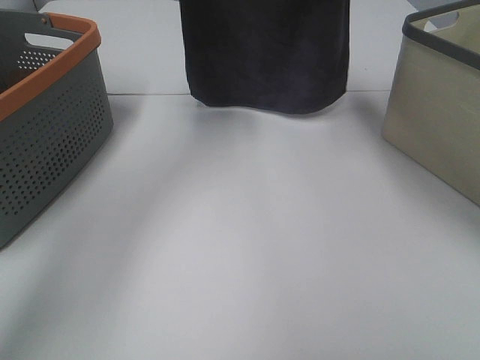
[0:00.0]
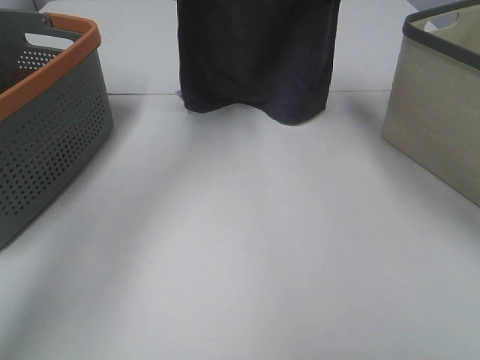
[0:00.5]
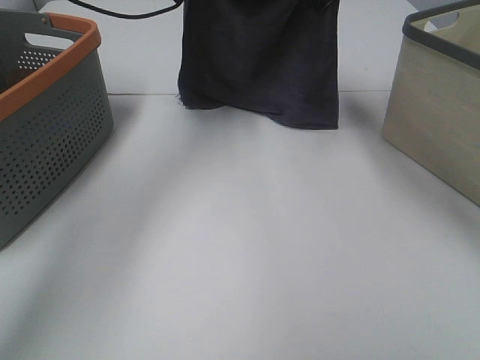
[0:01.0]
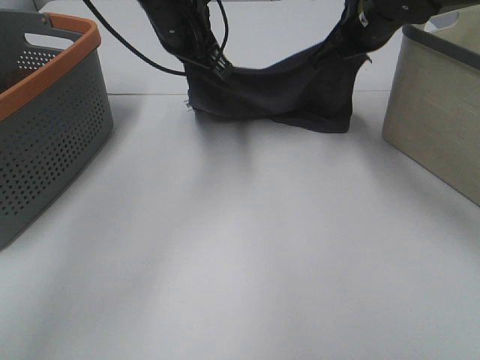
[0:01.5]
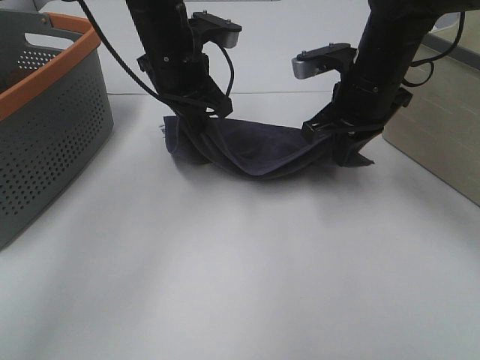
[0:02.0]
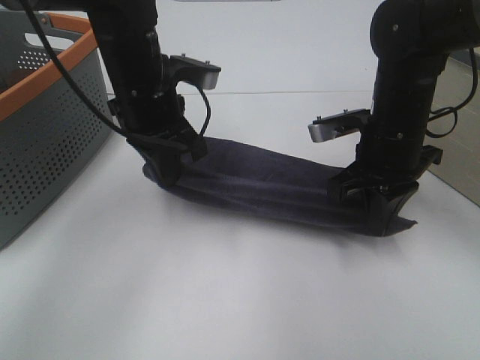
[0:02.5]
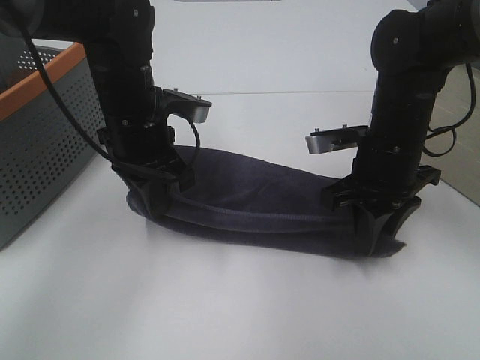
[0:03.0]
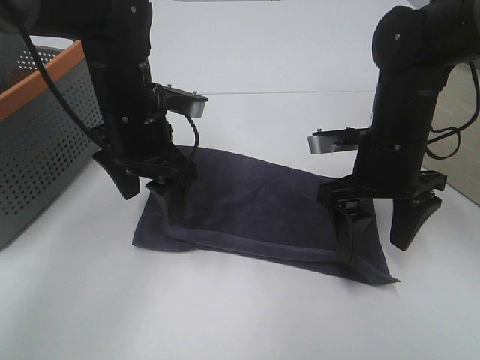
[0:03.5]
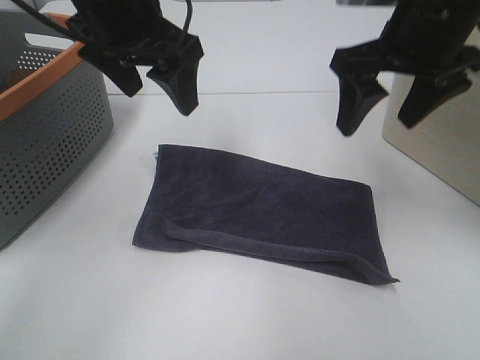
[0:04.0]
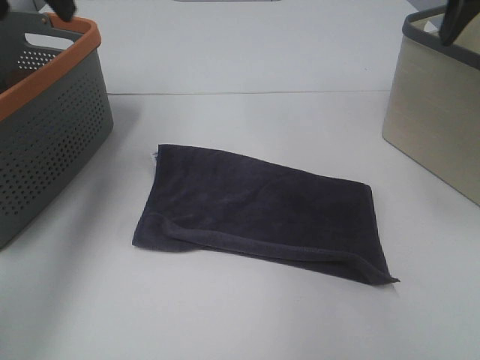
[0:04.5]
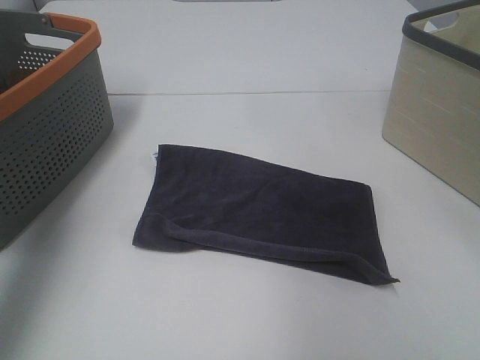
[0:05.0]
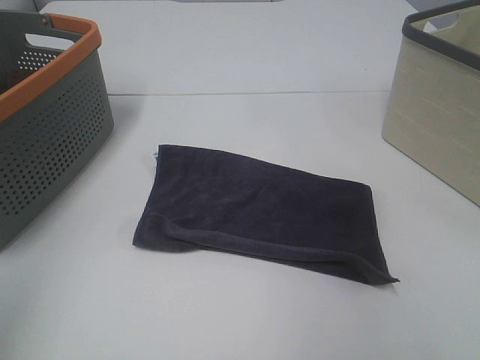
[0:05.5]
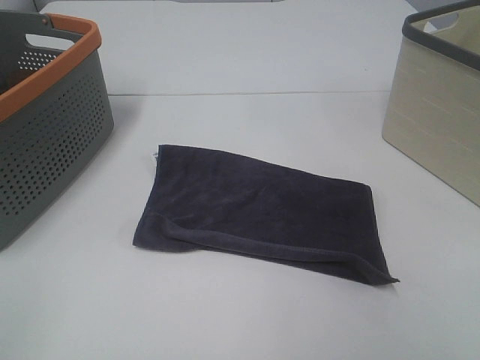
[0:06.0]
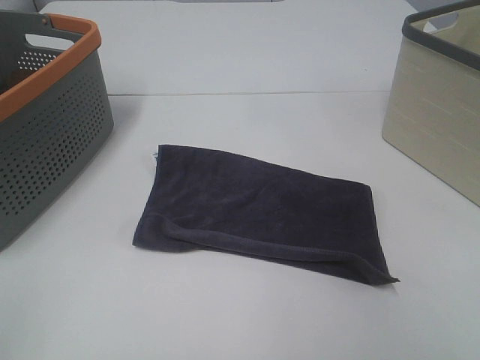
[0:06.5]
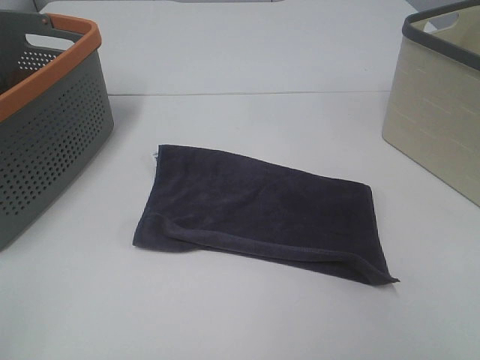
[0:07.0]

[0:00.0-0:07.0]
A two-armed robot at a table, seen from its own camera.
Task of the whole recording: Remove the towel and place it.
0:00.0 to 0:02.0: The grippers both shift downward and backward by roughly 15 cm.
0:02.0 to 0:03.5: Both grippers travel together backward, some 5 cm. The right gripper opens, while the left gripper opens its fingers.
0:03.5 to 0:05.0: The left gripper moves upward, to the left and backward, approximately 35 cm, while the right gripper shifts about 25 cm upward, backward and to the right.
0:05.0 to 0:07.0: The left gripper shifts about 25 cm backward and downward.

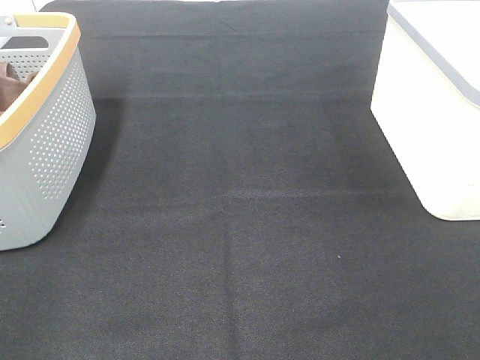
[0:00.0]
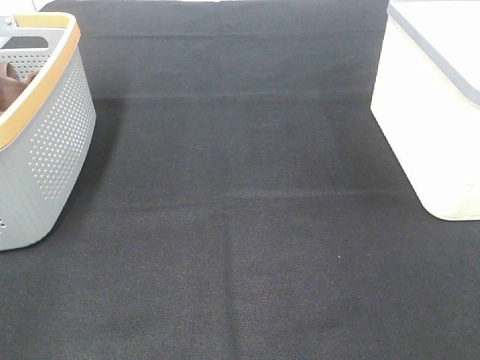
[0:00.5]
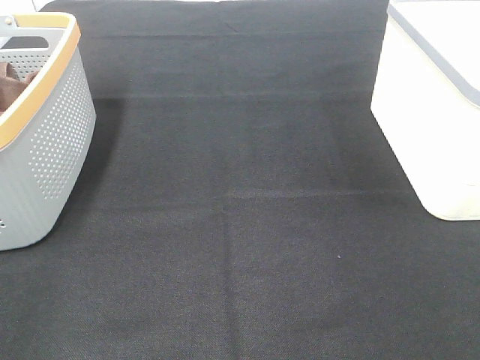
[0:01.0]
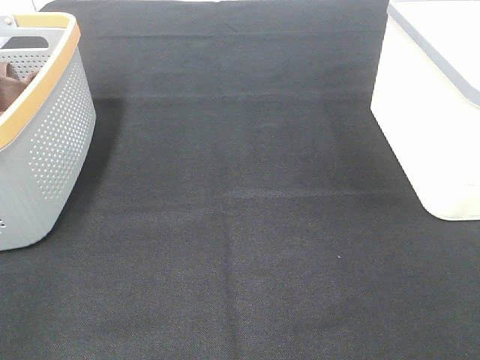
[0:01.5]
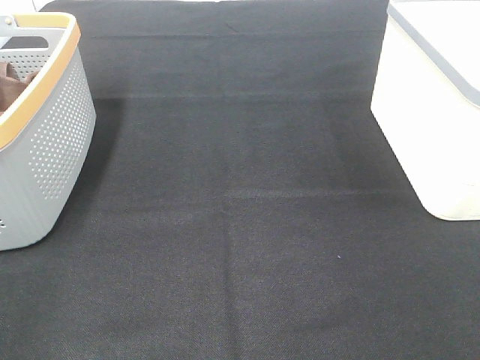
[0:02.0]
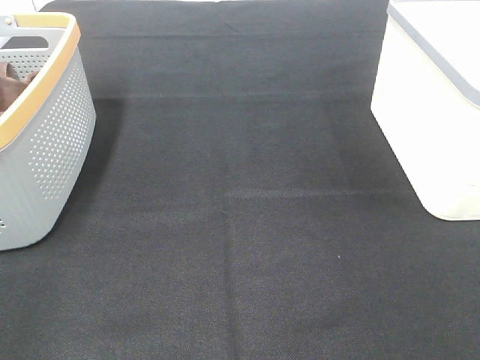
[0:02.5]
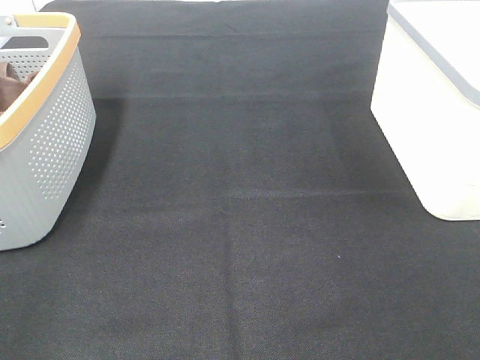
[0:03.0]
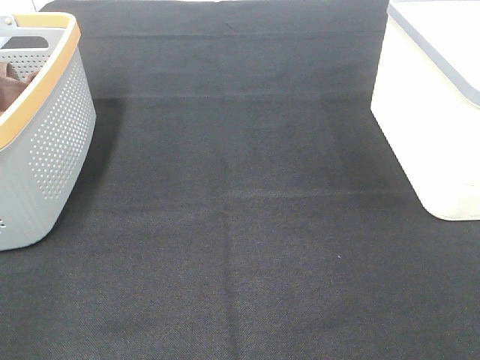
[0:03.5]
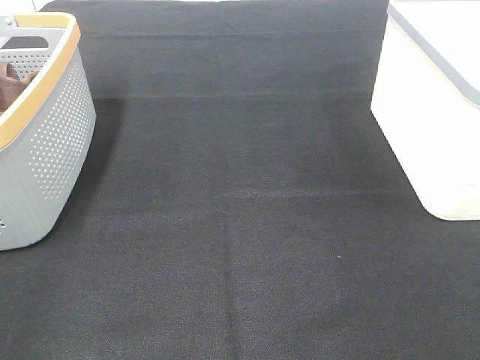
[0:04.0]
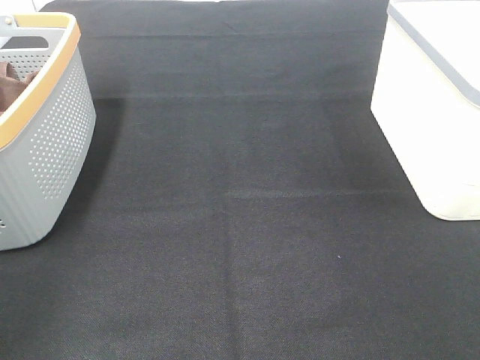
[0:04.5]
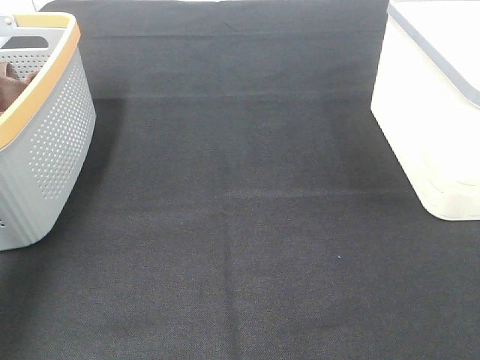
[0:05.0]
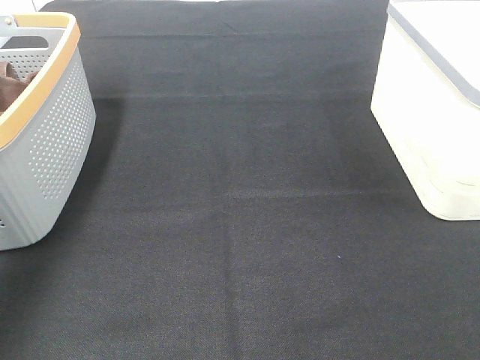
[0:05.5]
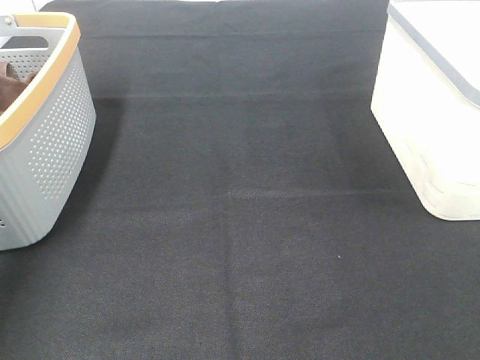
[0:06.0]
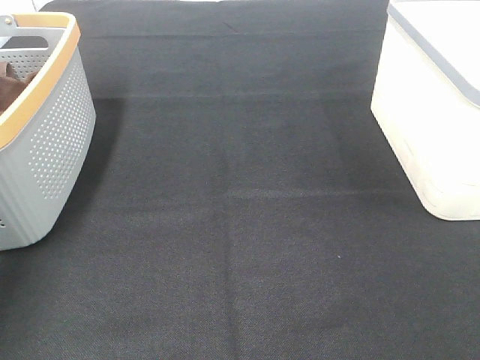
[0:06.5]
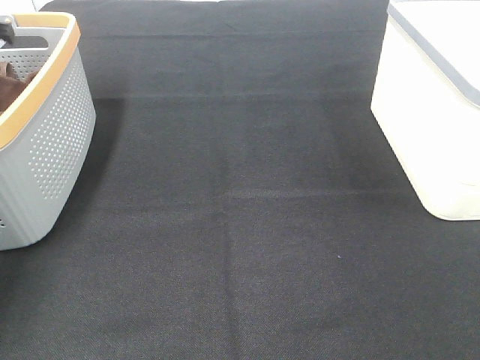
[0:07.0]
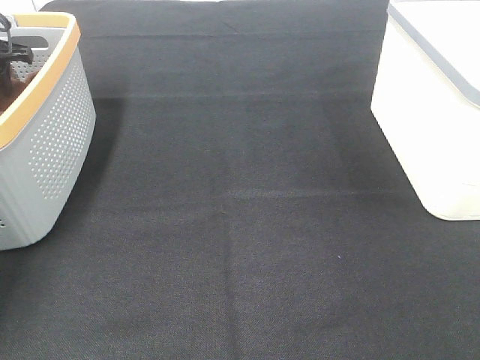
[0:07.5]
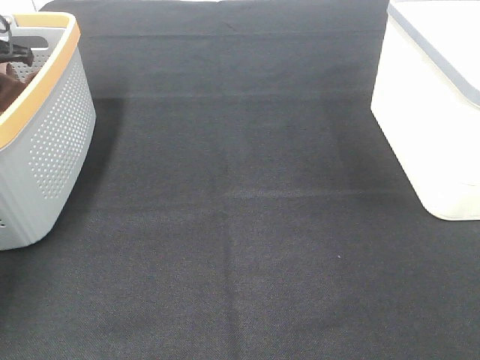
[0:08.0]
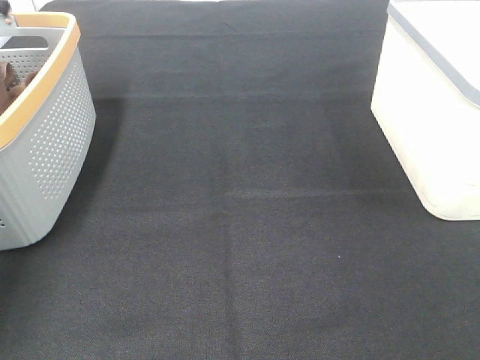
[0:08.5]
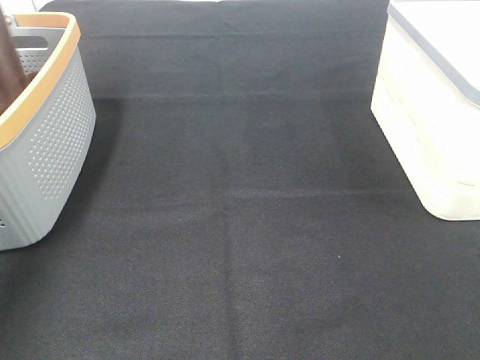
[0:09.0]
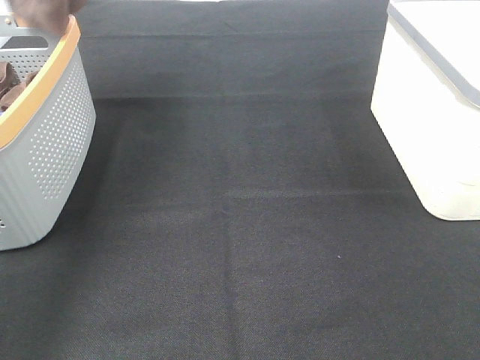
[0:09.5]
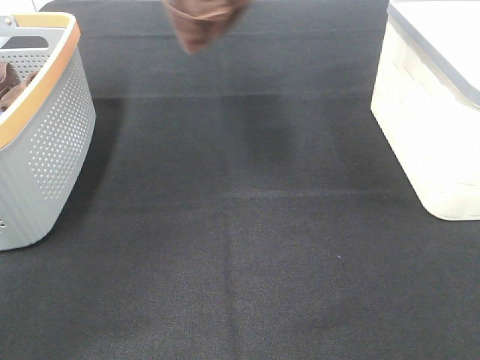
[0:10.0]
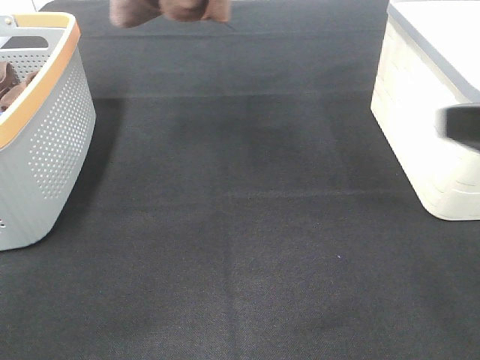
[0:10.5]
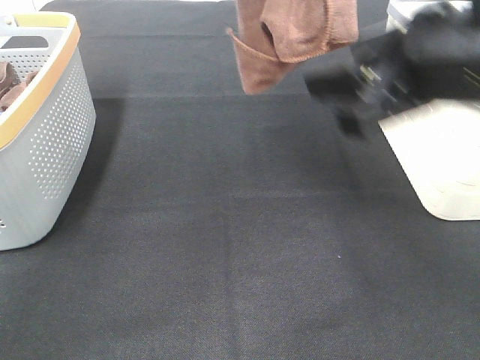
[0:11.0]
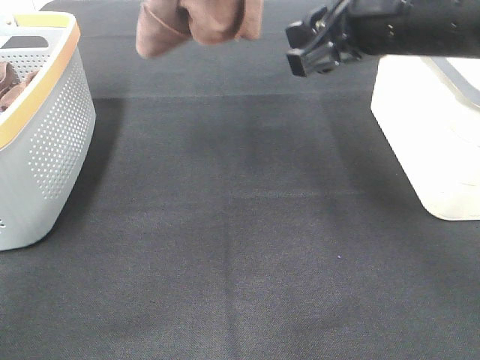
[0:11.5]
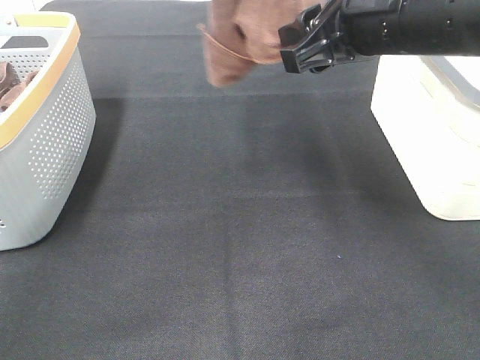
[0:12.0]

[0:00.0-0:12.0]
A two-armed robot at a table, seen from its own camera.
Task of the whole recording: Remove the towel and place it.
0:00.0 to 0:02.0: Both grippers stay about where they are.
0:04.0 to 0:06.0: The left gripper goes roughly 40 cm forward.
0:06.0 to 0:08.0: The left gripper is displaced downward and forward by some 15 cm, and closes up.
0:08.0 to 0:10.0: The left gripper moves upward and to the right, roughly 35 cm.
0:10.0 to 0:12.0: The left gripper shifts some 5 cm to the right, while the right gripper moves forward and to the left, roughly 30 cm.

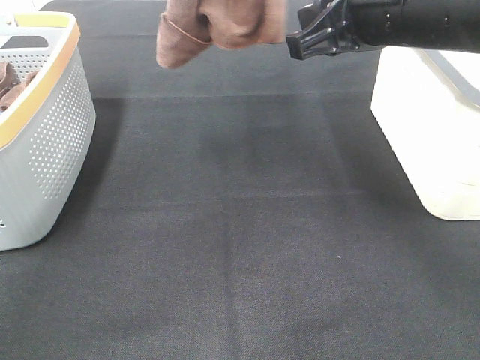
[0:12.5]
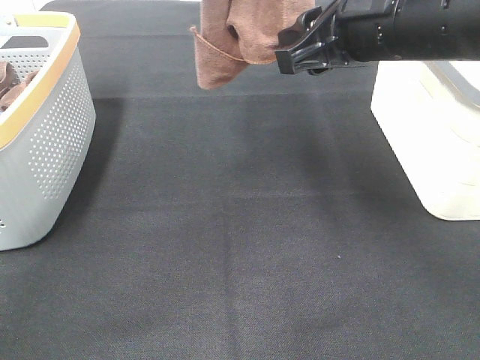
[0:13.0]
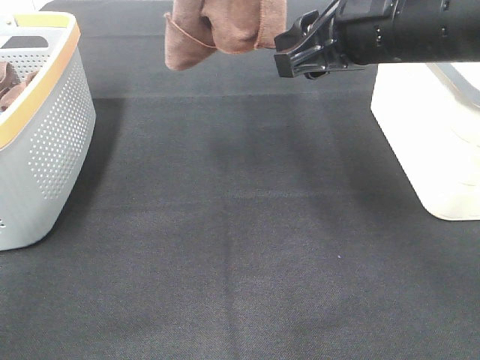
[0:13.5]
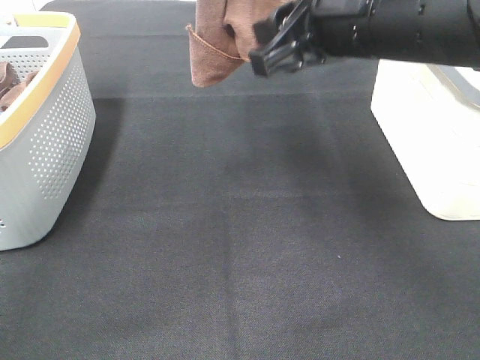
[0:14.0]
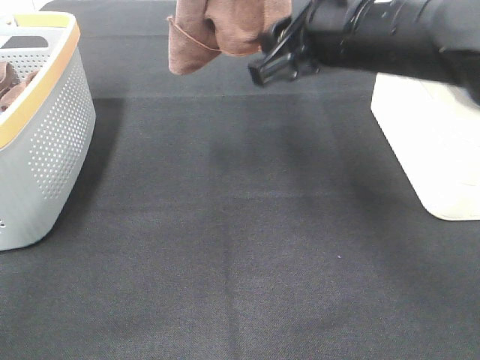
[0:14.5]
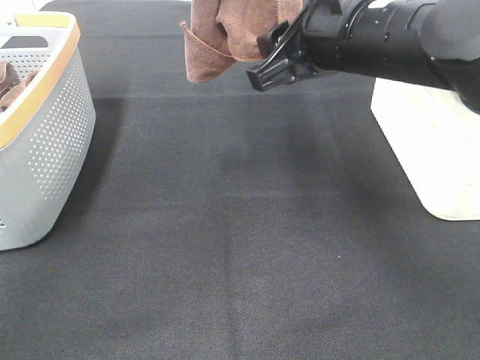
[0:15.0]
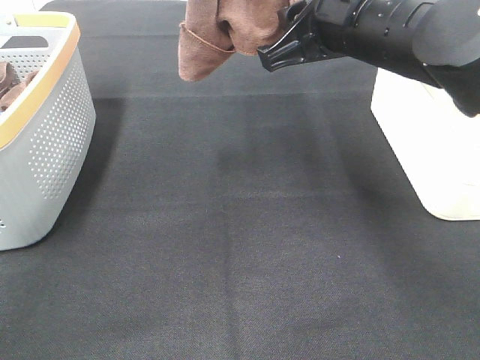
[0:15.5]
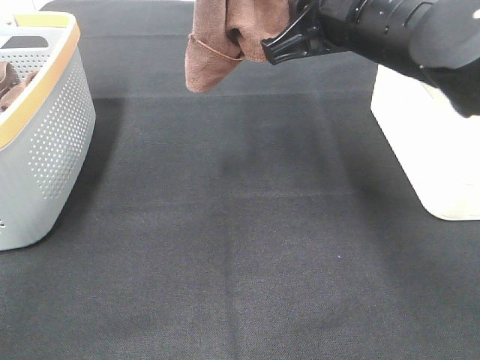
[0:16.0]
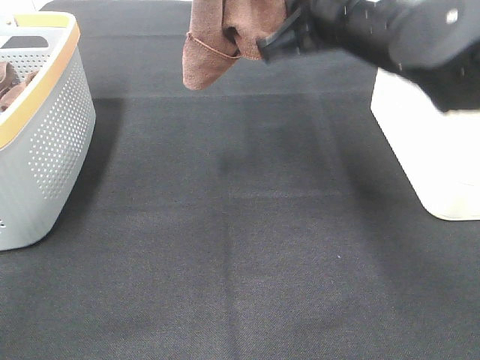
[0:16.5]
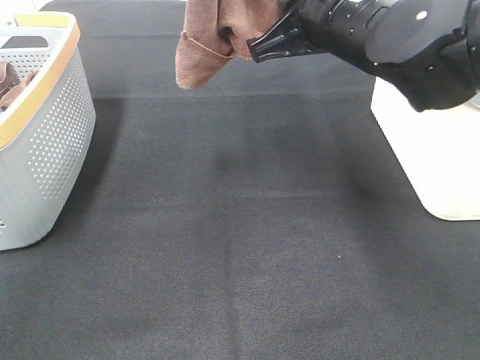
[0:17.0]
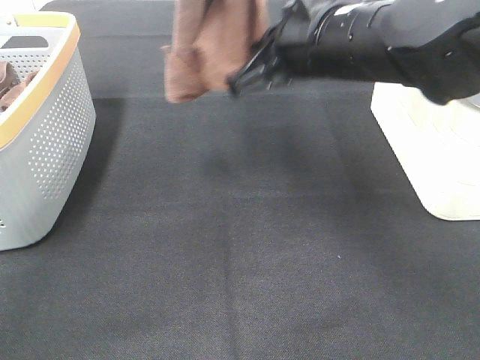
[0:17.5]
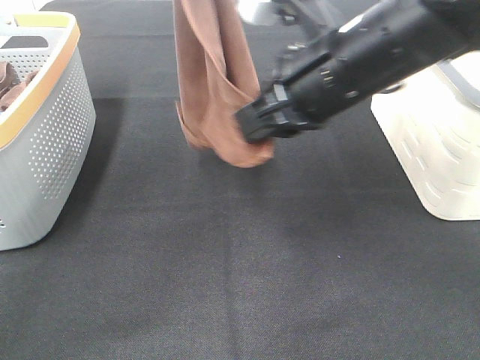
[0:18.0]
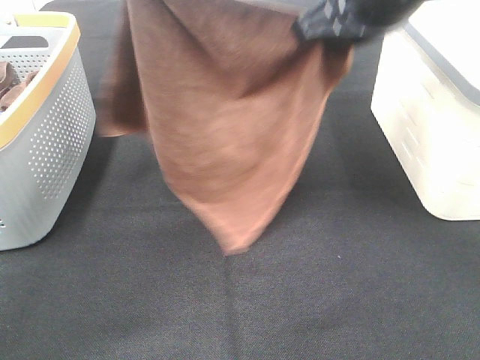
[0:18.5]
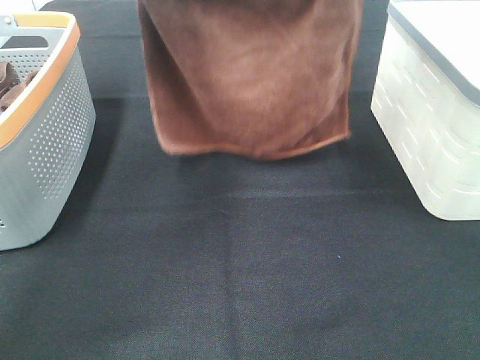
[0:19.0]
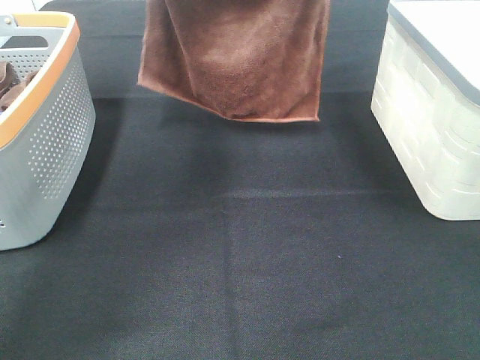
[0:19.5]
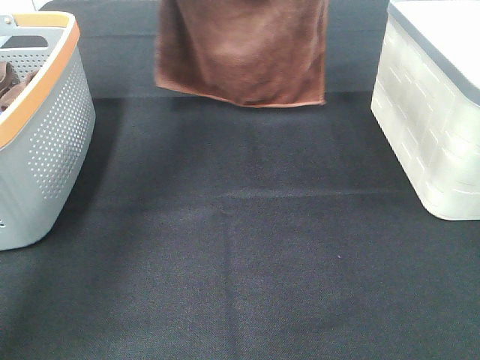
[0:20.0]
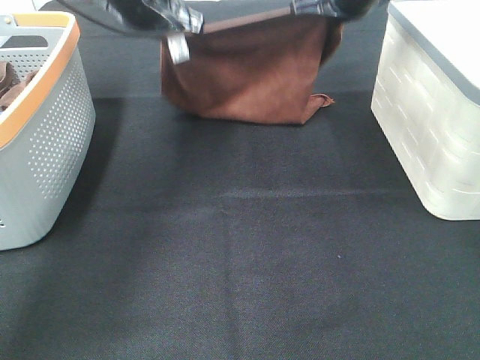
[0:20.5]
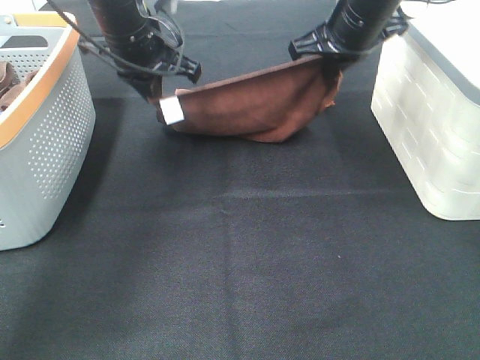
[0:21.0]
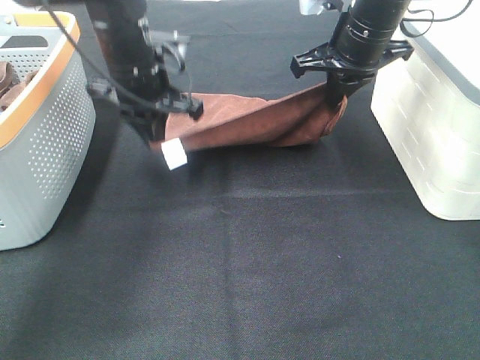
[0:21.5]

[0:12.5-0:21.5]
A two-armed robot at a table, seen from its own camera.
Task of the whole recording: Remove the towel and place it.
Step, 0:12.5 to 0:15.0: Right hand: grab a corner of the brown towel and straighten it.
Step, 0:15.5 to 0:18.0: Left hand: spread the brown towel flat on the table.
Step, 0:15.5 to 0:18.0: Right hand: spread the brown towel flat on the table.
0:12.5 to 0:14.5: The grippers move only a little.
0:14.5 to 0:17.0: The right gripper closes its fingers.
0:17.0 to 0:19.5: The left gripper heads downward and forward, covering some 15 cm. The right gripper is displaced forward and upward by about 15 cm.
0:19.5 to 0:21.5: The left gripper shifts roughly 20 cm downward, while the right gripper shifts about 10 cm downward.
